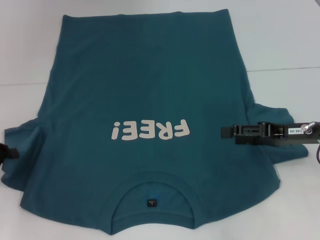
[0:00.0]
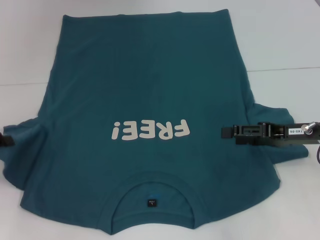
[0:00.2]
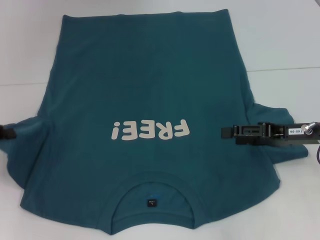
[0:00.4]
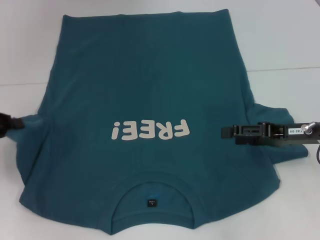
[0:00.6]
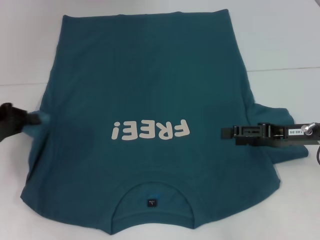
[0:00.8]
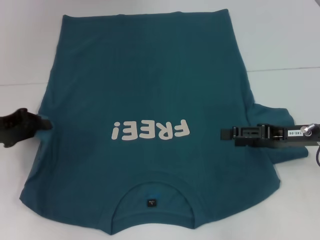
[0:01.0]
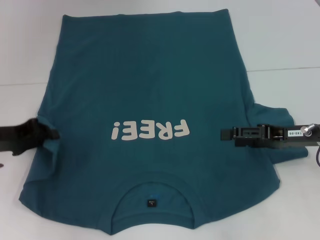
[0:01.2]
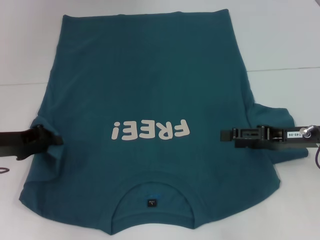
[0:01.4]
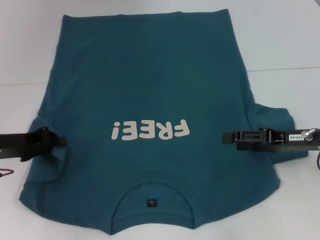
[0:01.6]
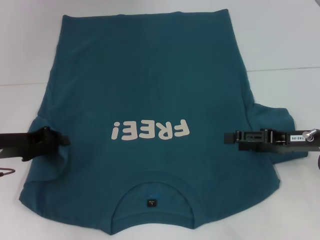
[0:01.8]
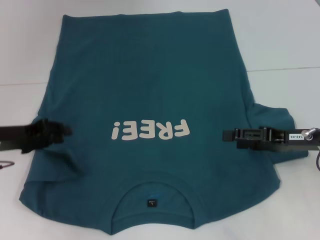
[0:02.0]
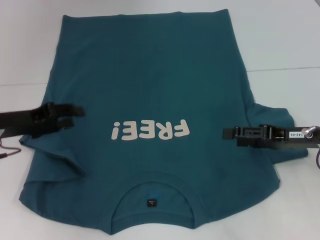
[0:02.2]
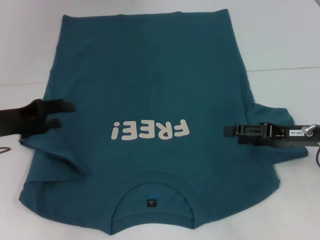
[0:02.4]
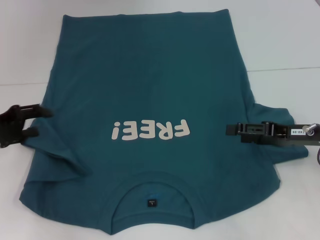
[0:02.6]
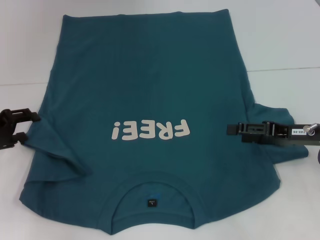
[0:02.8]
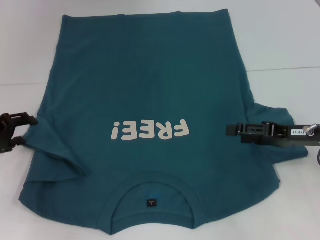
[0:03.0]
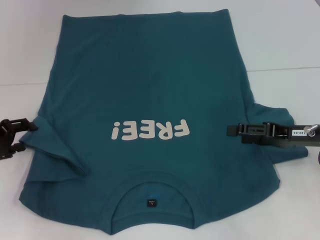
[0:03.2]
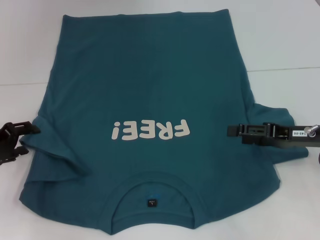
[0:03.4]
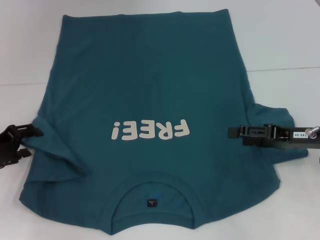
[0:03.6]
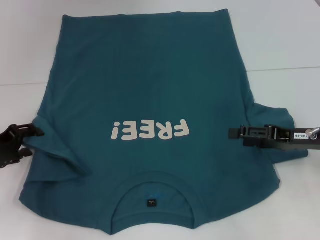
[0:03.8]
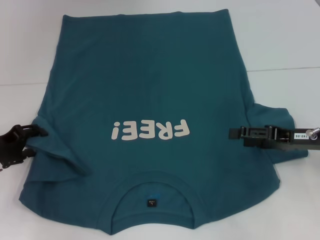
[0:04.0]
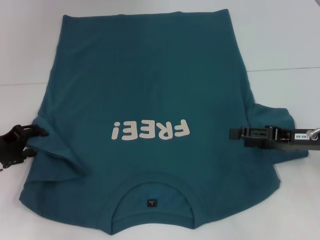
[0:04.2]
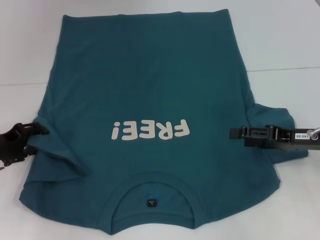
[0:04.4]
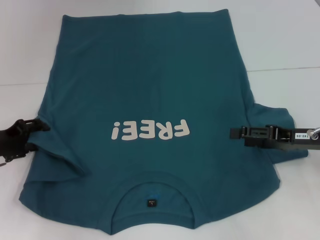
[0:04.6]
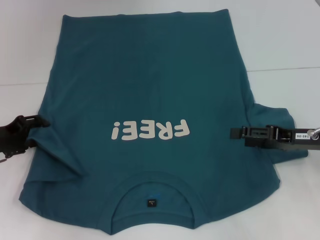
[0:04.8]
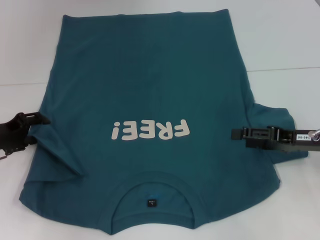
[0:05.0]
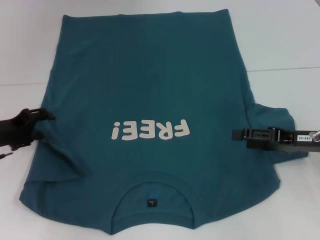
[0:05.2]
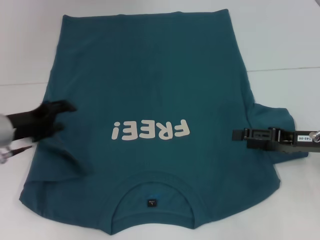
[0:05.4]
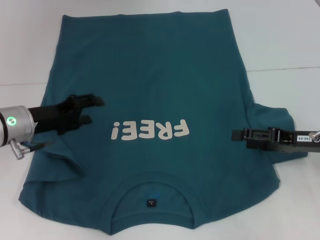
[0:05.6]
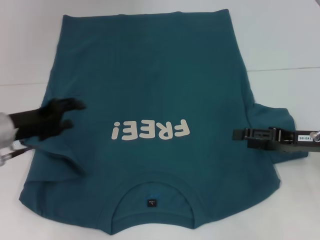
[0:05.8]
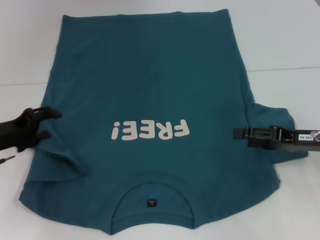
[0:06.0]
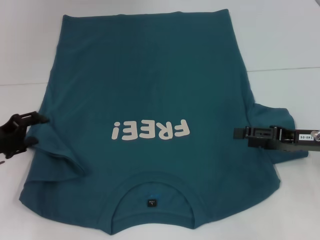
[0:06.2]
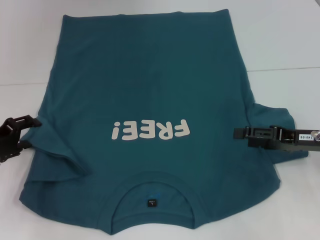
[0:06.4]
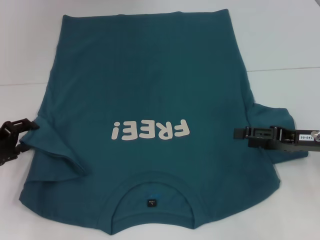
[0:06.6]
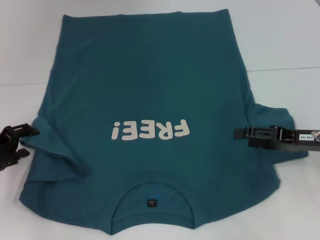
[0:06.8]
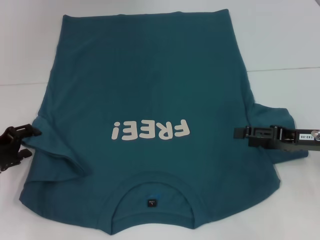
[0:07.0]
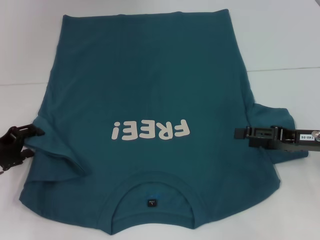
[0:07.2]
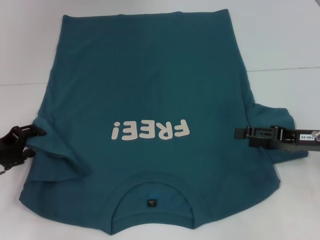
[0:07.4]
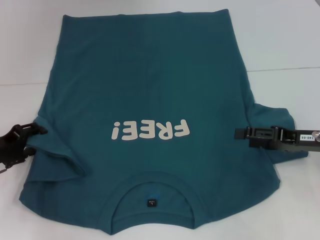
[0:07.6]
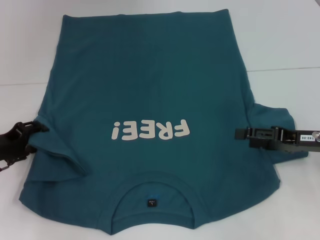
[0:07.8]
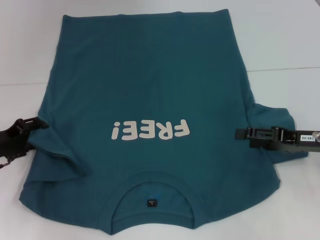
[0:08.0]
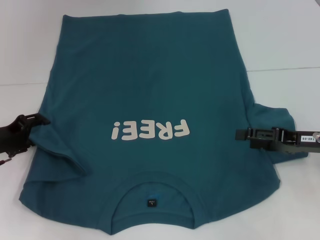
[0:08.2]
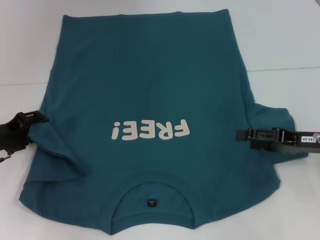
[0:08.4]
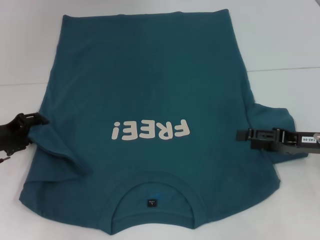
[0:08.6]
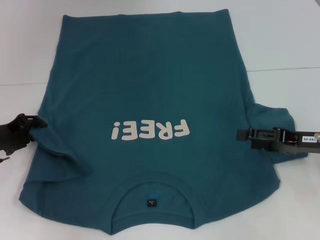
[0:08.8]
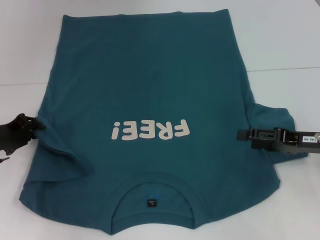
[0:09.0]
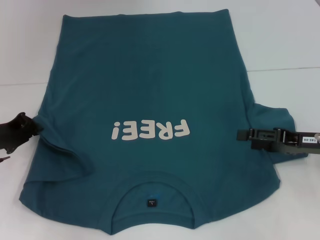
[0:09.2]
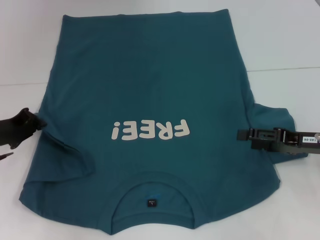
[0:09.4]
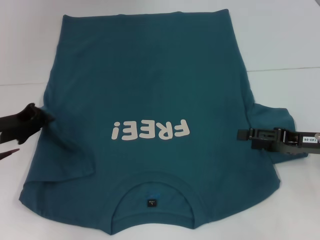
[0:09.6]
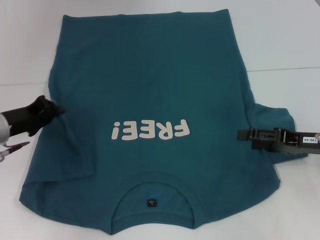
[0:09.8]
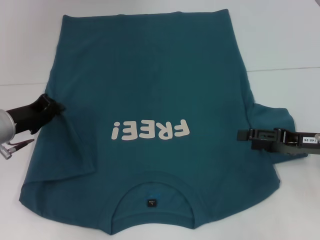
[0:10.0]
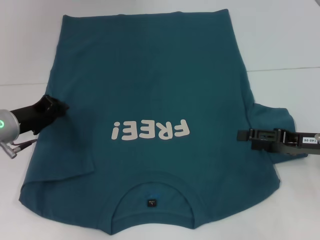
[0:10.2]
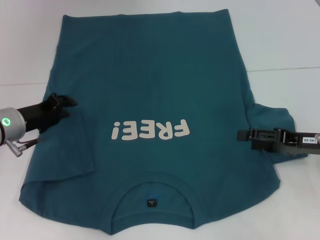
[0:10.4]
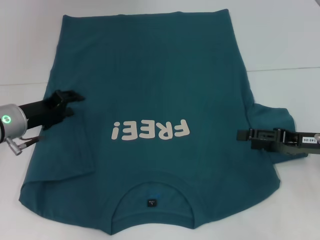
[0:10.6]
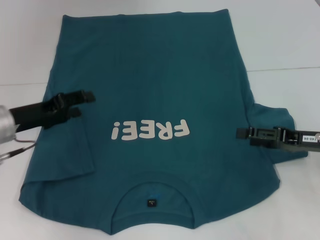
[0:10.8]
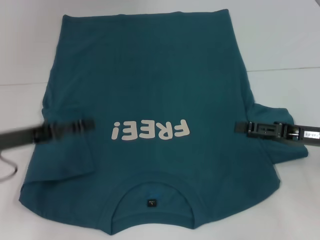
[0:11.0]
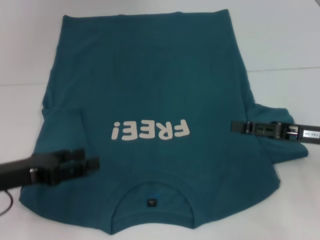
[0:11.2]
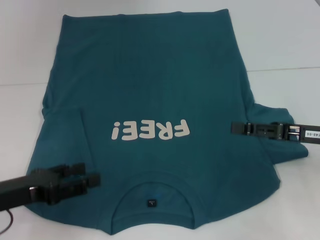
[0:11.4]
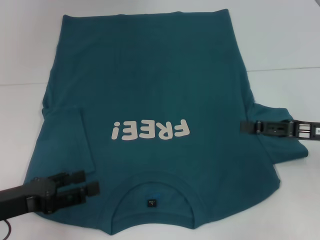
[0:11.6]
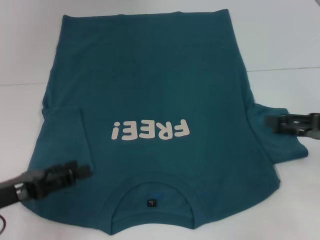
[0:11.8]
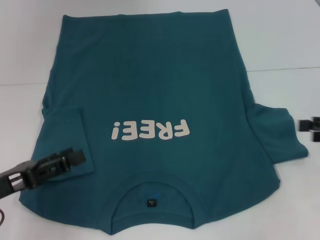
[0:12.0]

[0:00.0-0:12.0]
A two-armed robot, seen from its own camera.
Step, 0:00.0 to 0:10.4: Fold the bottom left sleeve with your left hand.
0:00.0 to 0:01.6: The left gripper shifts approximately 5 cm to the right.
0:01.6 to 0:03.0: The left gripper opens its fingers.
0:03.0 to 0:04.4: The grippers make only small movements.
0:04.4 to 0:06.0: The left gripper moves approximately 10 cm to the right and comes back.
0:06.0 to 0:09.0: The grippers stay close to where they were, moving slightly.
0:09.0 to 0:10.4: The left gripper heads to the right, covering approximately 5 cm.
0:10.4 to 0:12.0: The right gripper travels to the right and upward by roughly 10 cm, while the left gripper heads backward, covering approximately 15 cm, and opens its fingers.

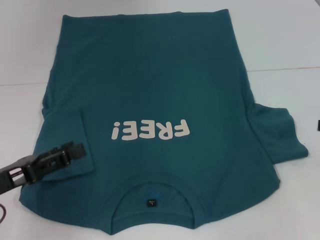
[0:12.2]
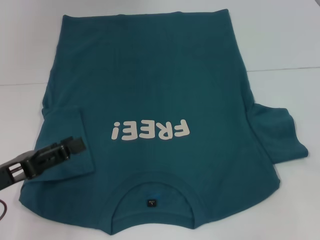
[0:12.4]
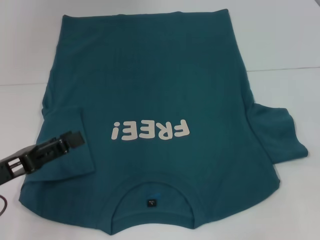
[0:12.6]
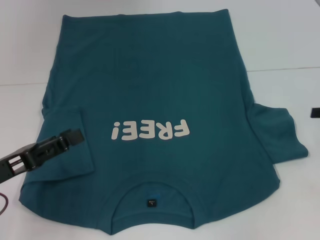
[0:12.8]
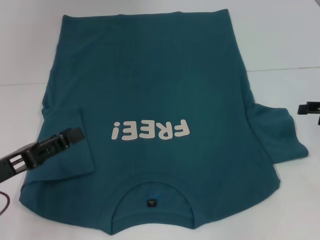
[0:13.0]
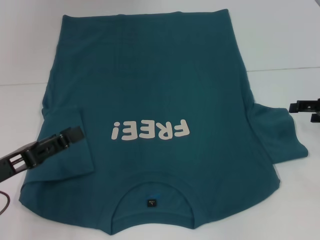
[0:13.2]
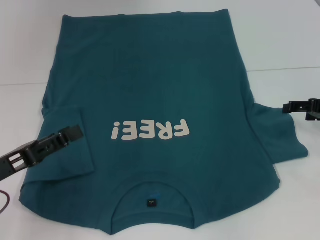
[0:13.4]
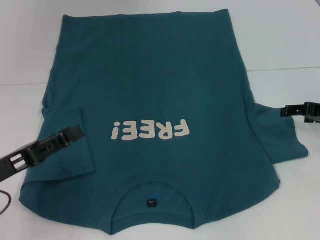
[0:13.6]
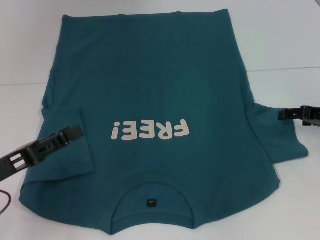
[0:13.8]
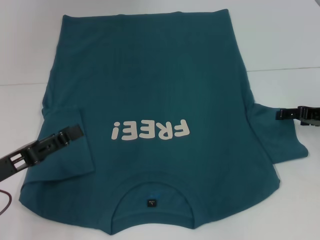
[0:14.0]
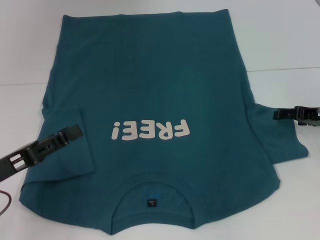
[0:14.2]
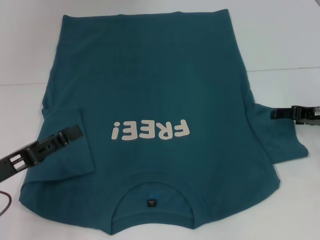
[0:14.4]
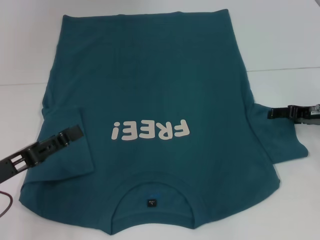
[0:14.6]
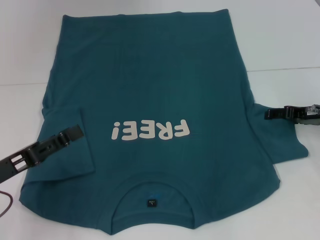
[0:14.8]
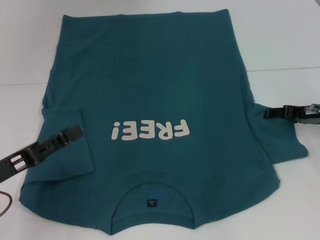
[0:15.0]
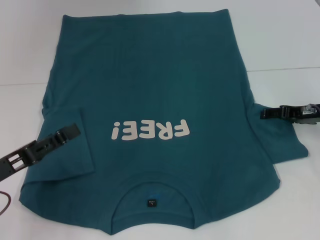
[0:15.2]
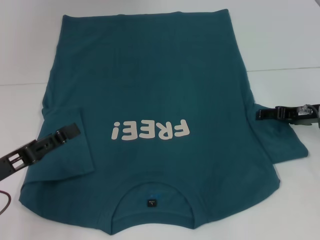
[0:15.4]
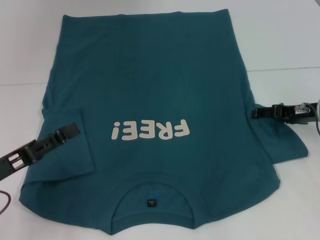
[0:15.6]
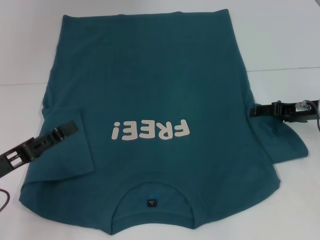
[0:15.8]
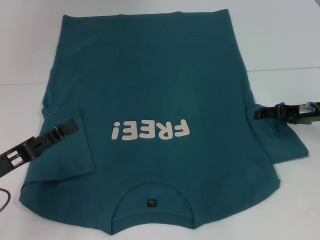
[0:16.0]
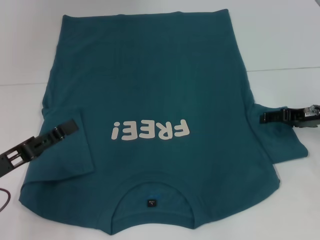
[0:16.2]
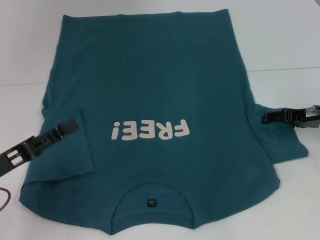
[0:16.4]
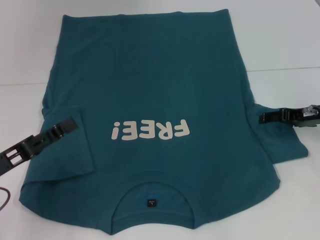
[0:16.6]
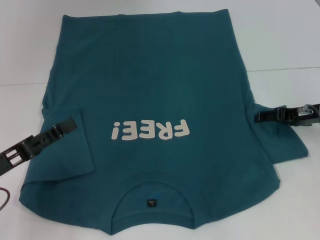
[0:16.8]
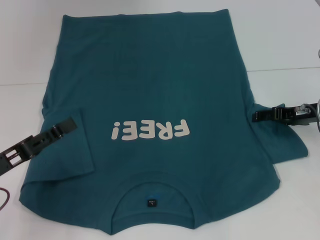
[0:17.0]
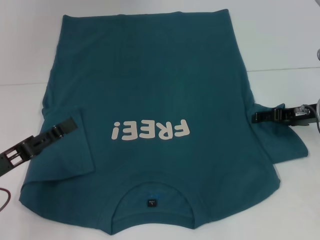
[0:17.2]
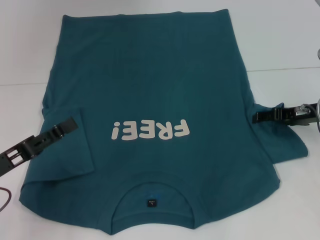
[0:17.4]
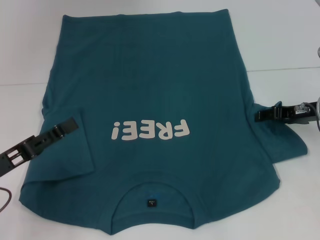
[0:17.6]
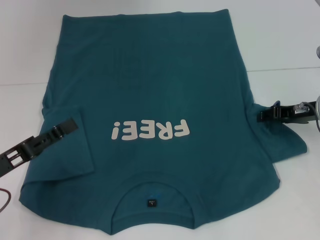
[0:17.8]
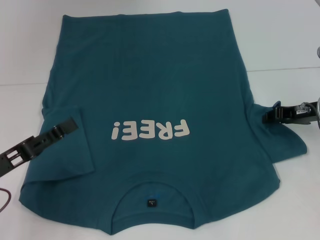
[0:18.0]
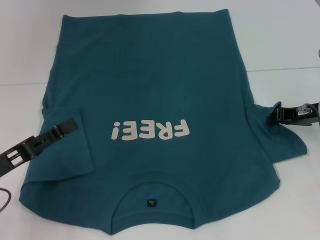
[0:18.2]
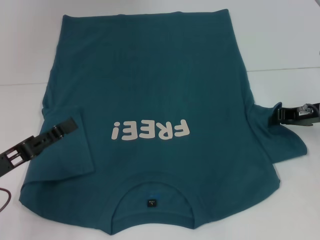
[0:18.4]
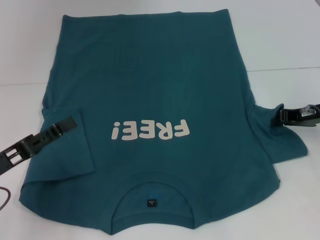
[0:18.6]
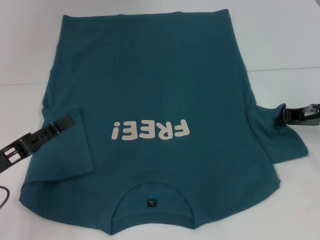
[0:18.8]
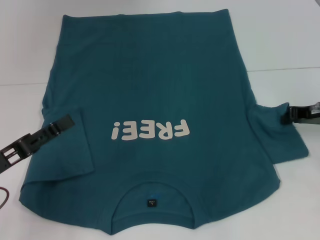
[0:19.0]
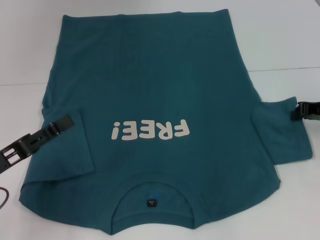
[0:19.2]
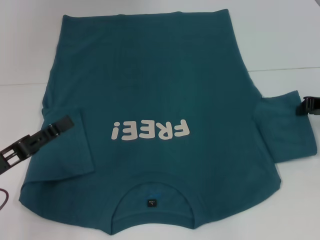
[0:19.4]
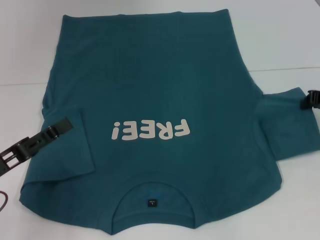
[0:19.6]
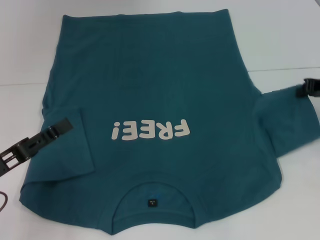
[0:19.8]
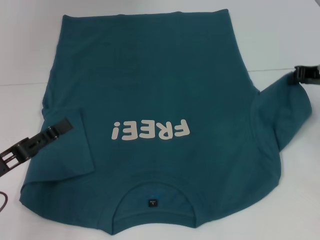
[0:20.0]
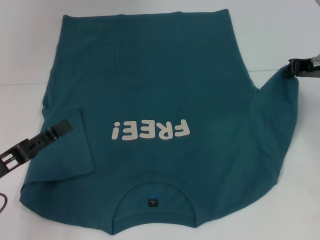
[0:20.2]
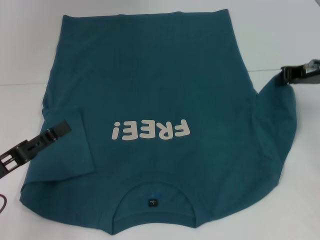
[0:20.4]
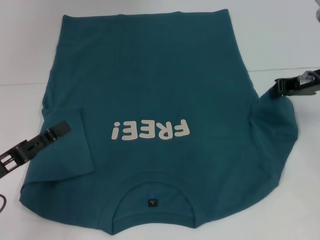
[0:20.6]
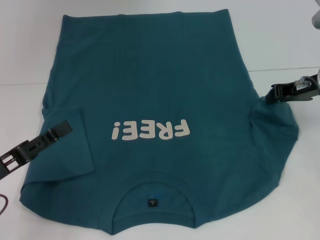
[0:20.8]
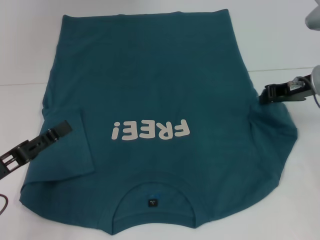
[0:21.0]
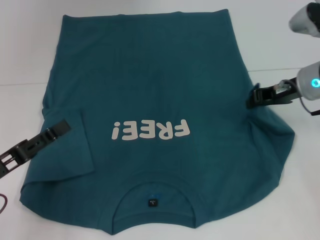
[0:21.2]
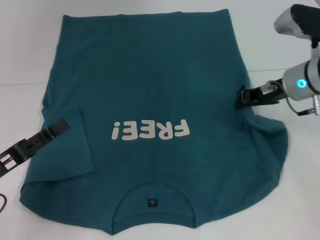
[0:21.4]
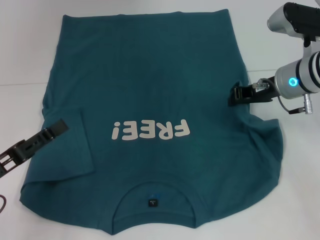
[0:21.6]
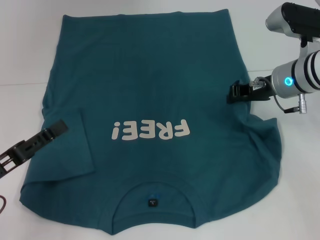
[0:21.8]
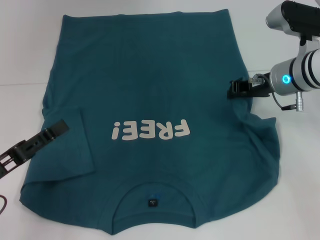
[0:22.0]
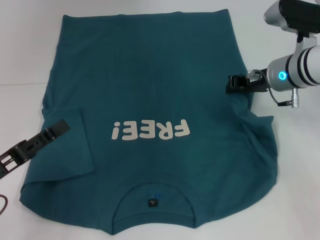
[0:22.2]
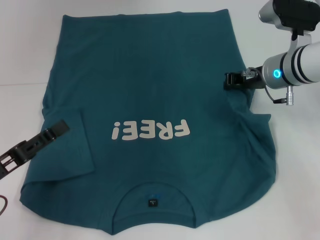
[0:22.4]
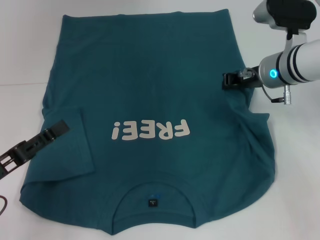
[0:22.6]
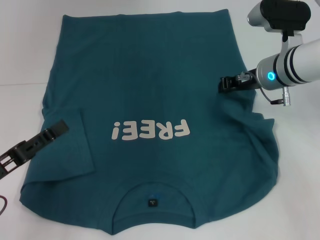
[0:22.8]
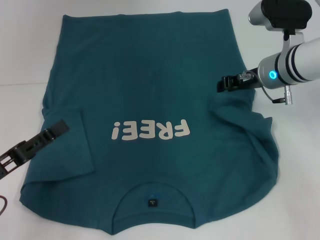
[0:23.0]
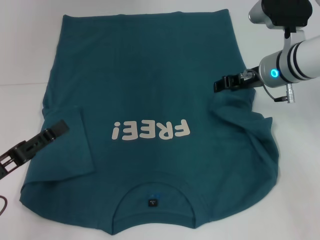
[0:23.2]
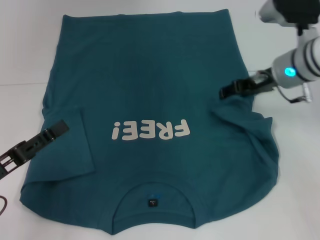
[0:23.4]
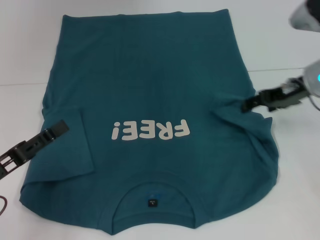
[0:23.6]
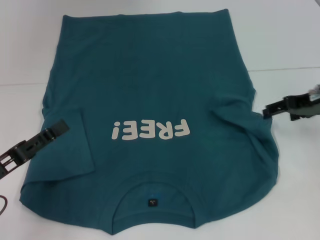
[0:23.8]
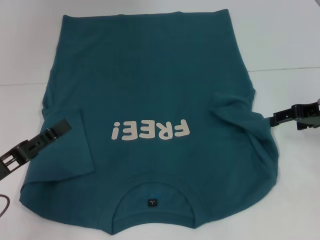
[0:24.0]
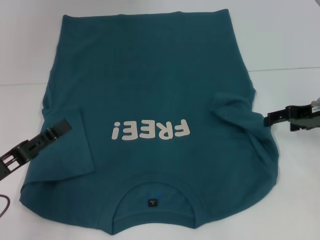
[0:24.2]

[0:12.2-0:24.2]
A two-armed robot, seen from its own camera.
0:12.2 to 0:13.8: The right gripper shifts about 10 cm forward, to the left and downward.
0:13.8 to 0:16.6: The grippers stay close to where they were, moving slightly.
0:16.6 to 0:18.2: The right gripper closes its fingers.
0:18.2 to 0:19.8: The right gripper shifts by approximately 5 cm.
0:19.8 to 0:21.2: The right gripper travels to the left by about 10 cm.
0:21.2 to 0:22.6: The right gripper goes approximately 5 cm to the left.
0:22.6 to 0:24.2: The right gripper moves to the right and backward, approximately 10 cm, and opens.
